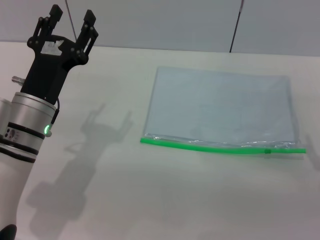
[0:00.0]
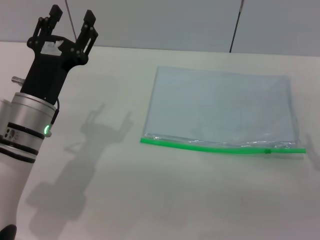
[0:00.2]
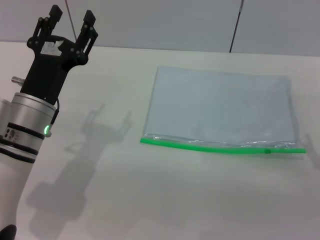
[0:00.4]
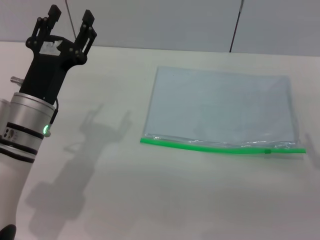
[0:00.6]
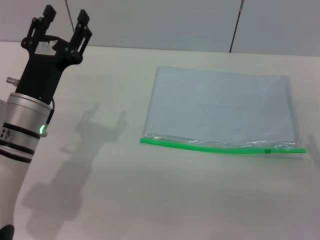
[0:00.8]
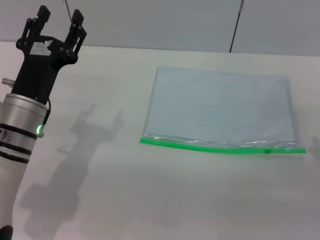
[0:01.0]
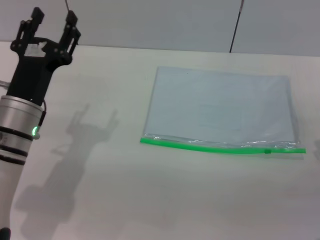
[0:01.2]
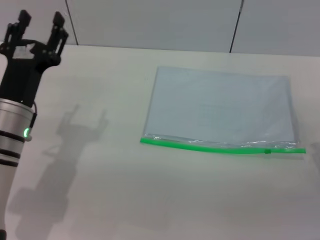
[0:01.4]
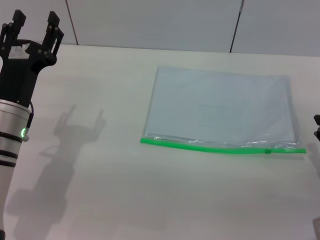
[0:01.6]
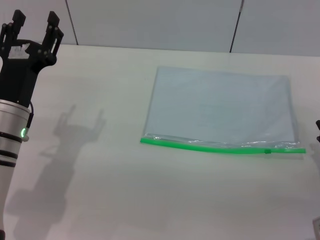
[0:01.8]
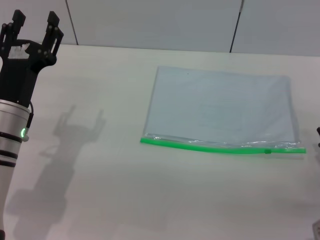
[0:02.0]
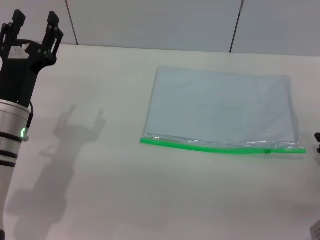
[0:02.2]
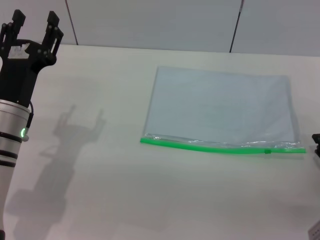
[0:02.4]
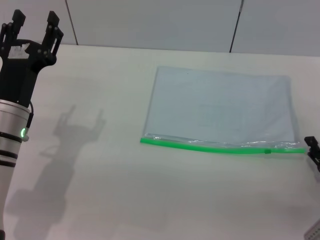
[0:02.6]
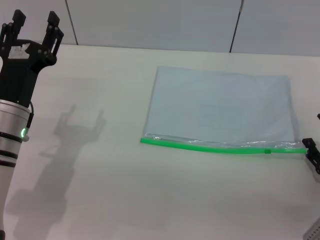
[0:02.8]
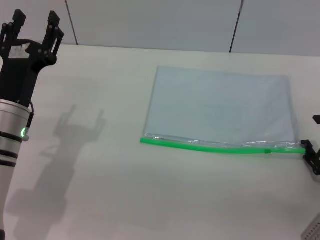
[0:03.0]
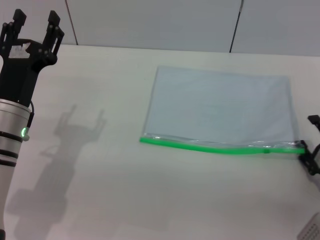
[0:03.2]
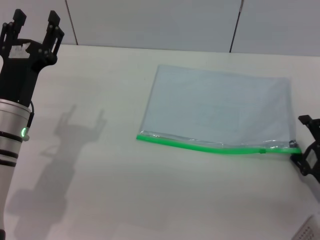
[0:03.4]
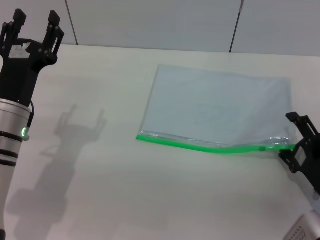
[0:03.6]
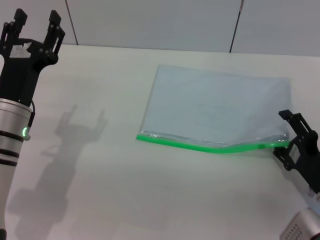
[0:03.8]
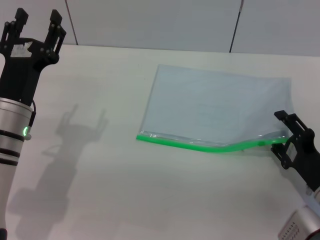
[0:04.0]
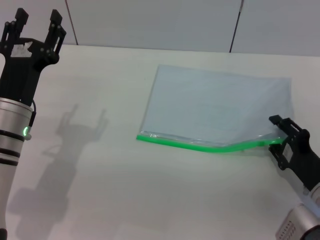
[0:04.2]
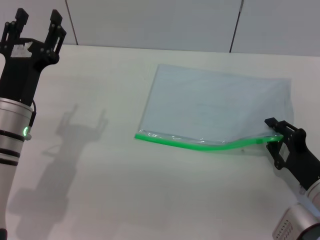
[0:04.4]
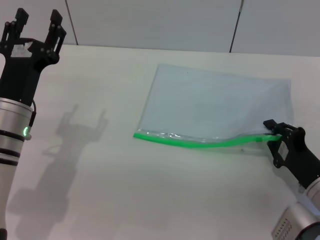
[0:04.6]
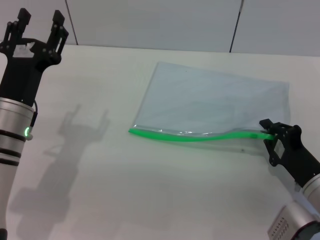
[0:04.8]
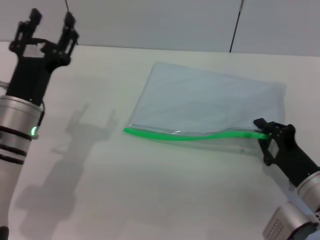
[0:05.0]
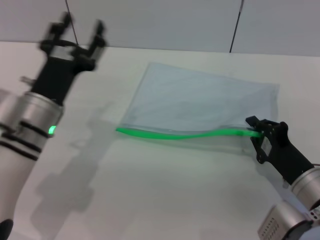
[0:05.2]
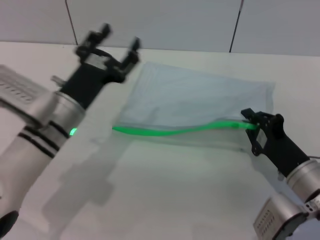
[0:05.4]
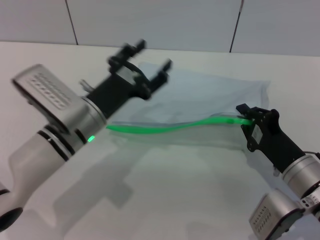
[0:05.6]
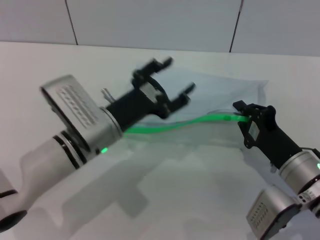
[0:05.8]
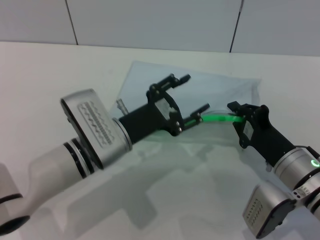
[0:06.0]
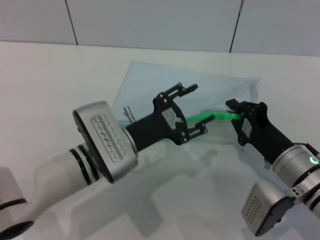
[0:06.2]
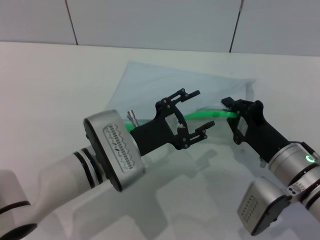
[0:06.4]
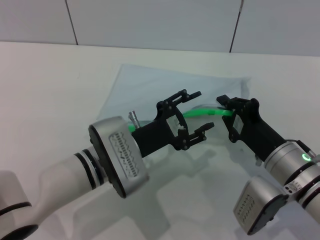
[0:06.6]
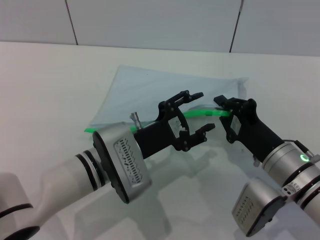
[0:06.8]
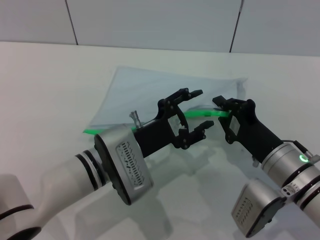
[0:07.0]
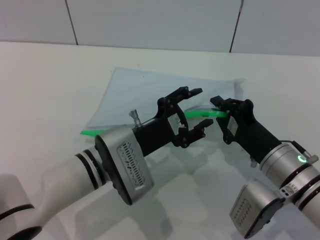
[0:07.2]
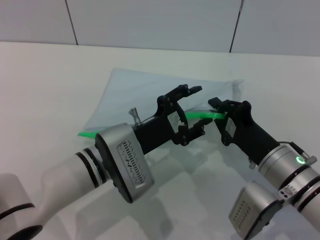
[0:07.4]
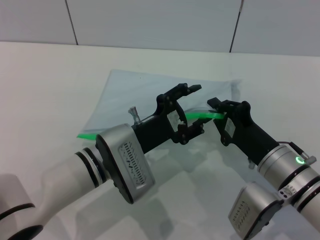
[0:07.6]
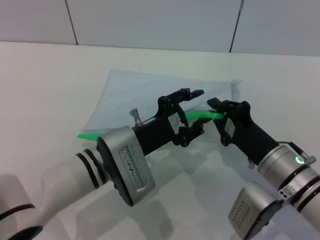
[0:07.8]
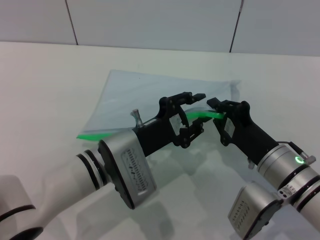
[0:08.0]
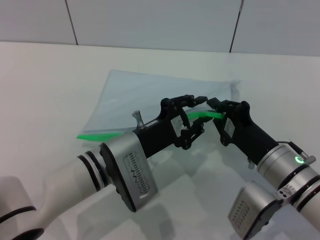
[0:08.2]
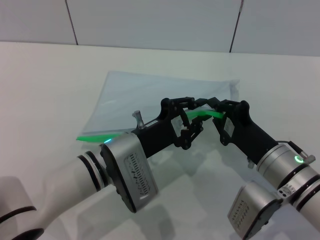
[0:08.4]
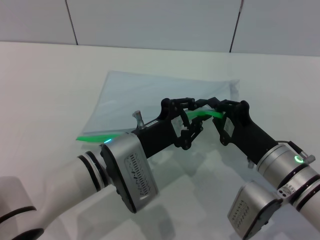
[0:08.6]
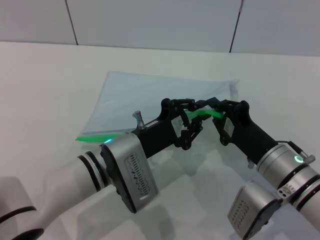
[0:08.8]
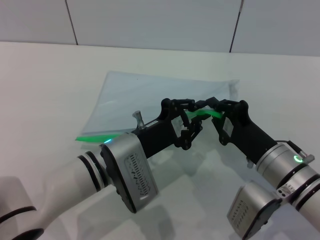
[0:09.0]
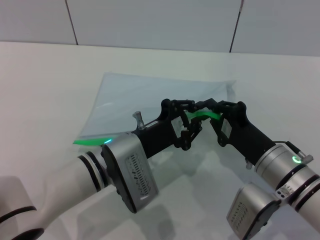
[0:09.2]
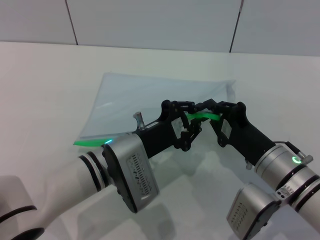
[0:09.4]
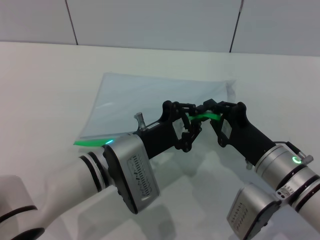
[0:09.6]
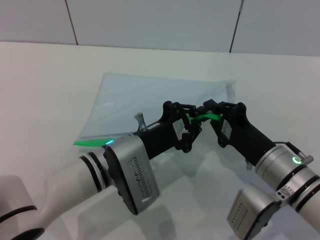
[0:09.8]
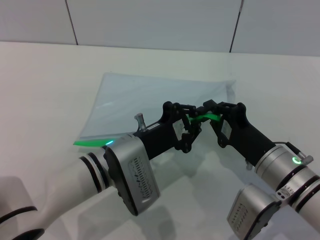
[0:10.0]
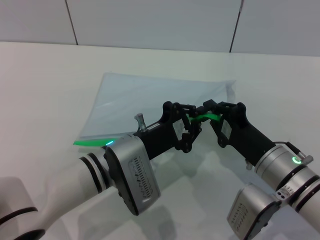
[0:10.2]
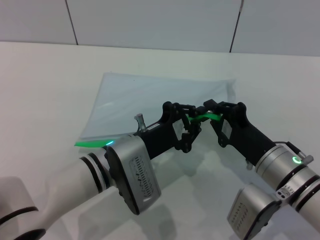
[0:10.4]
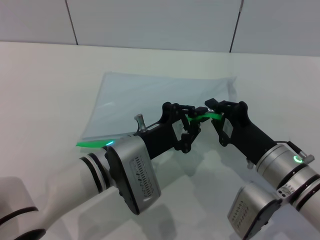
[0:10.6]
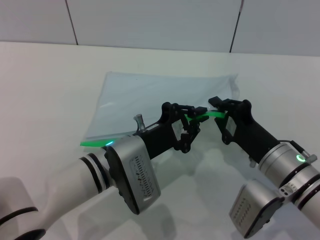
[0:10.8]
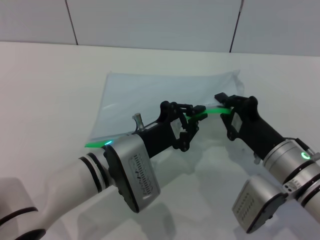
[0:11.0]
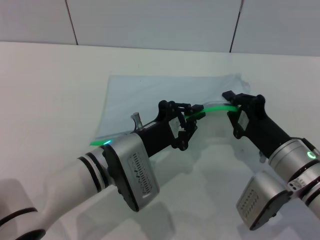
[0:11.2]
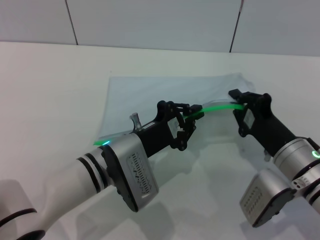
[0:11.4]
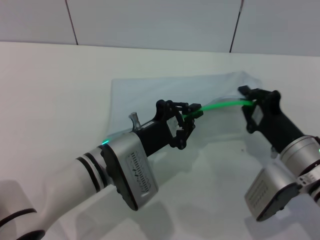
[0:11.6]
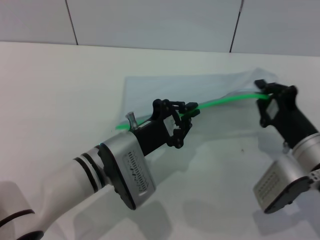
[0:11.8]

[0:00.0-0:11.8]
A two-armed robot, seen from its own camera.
Step, 0:00.0 to 0:05.4: Pick up the transparent plastic bag with the right gripper.
0:03.0 to 0:04.4: The right gripper closes.
0:04.4 to 0:06.0: The left gripper travels to the right by roughly 10 cm. Meanwhile the right gripper shifts approximately 5 cm to the left, and closes.
0:07.4 to 0:08.8: The left gripper closes its fingers.
0:08.8 to 0:10.4: Both grippers stay put.
0:10.4 to 0:11.8: The right gripper changes place by some 5 cm.

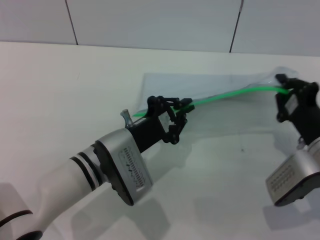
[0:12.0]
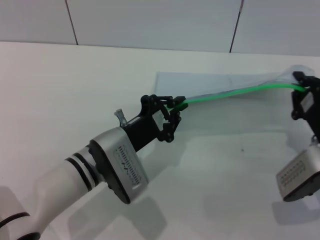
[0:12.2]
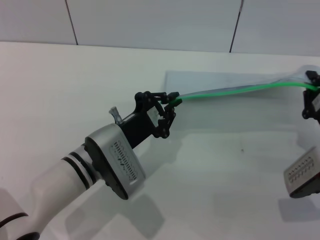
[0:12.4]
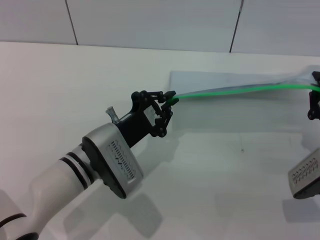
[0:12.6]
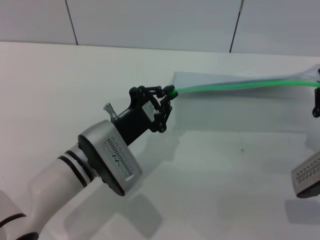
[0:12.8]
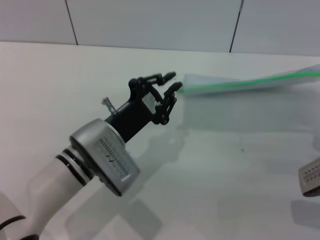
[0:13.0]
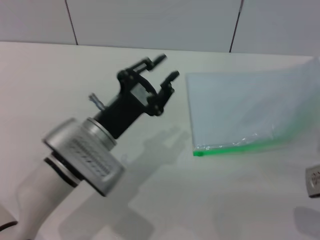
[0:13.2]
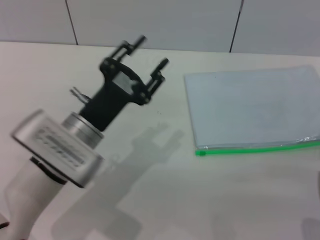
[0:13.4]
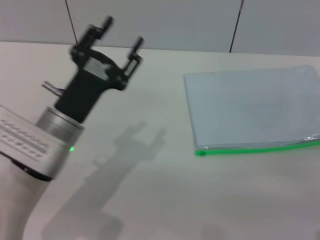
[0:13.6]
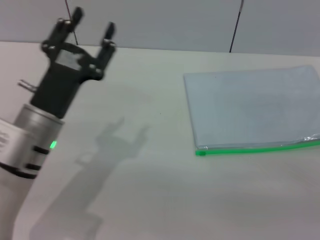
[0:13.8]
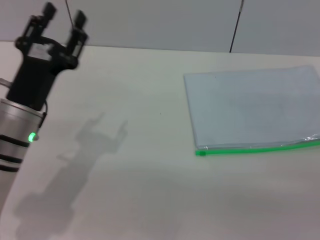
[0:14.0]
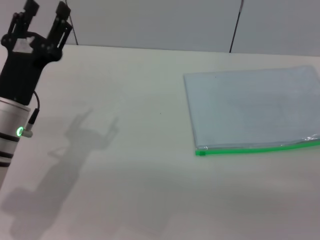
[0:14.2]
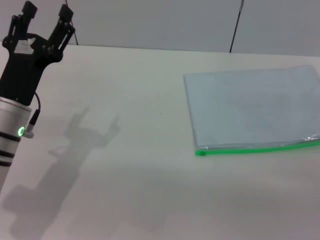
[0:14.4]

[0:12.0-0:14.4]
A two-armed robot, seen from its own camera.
Step, 0:13.2 to 0:13.4: Place the transparent plastic bag.
0:12.0 to 0:13.2: The right gripper changes place by approximately 5 cm.
0:13.2 to 0:14.4: The right gripper opens up. The left gripper goes approximately 10 cm to the left, and opens.
